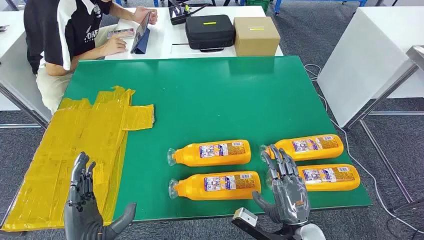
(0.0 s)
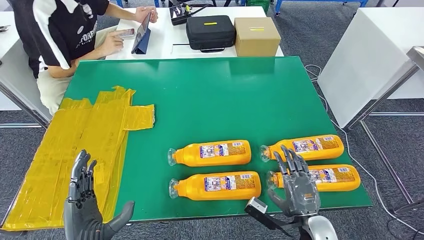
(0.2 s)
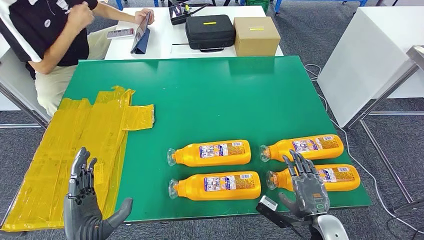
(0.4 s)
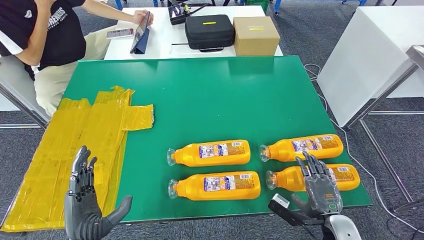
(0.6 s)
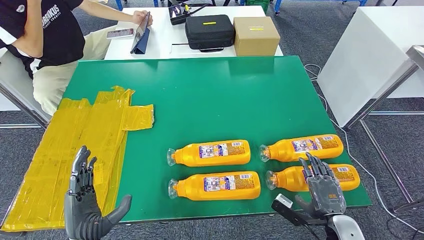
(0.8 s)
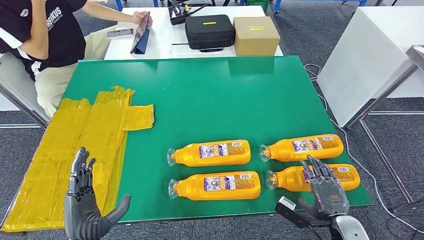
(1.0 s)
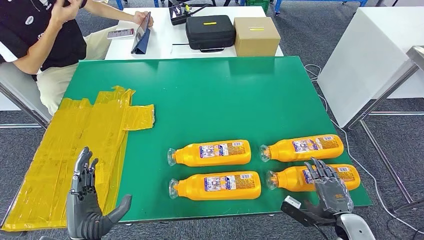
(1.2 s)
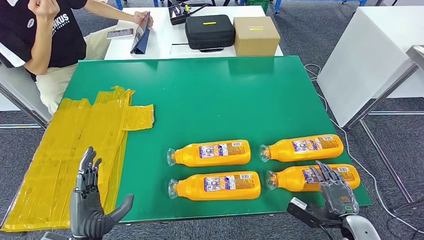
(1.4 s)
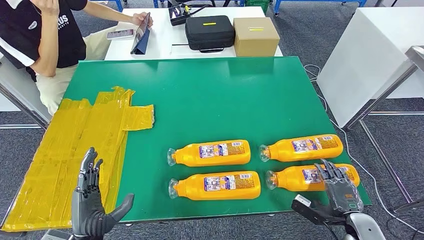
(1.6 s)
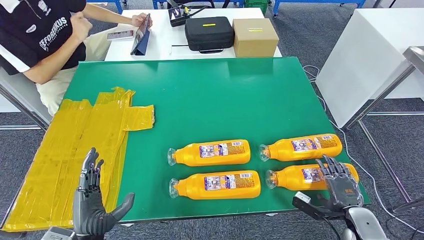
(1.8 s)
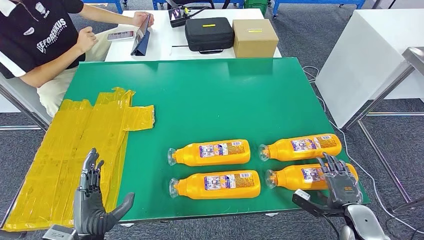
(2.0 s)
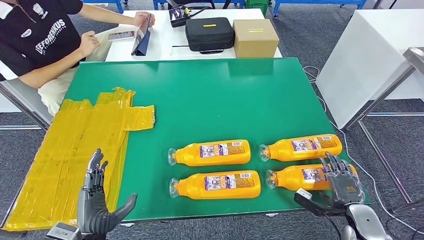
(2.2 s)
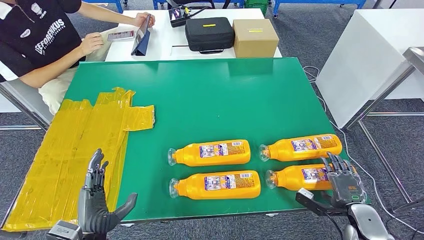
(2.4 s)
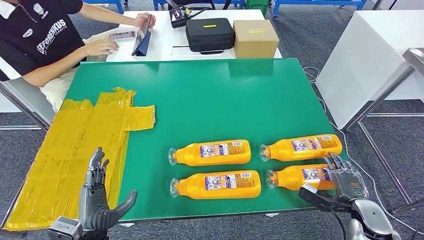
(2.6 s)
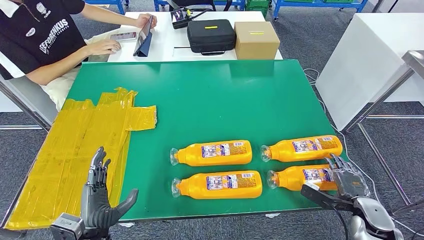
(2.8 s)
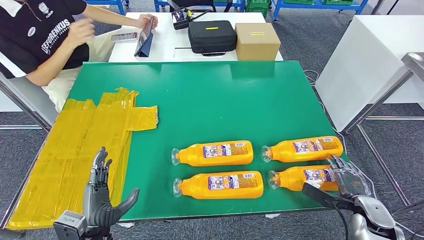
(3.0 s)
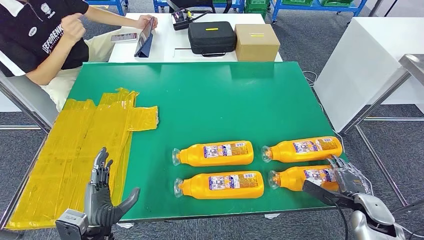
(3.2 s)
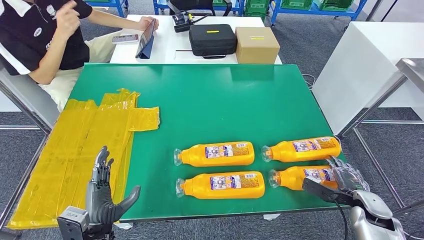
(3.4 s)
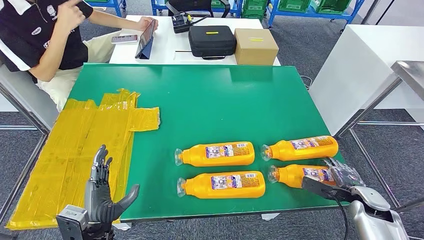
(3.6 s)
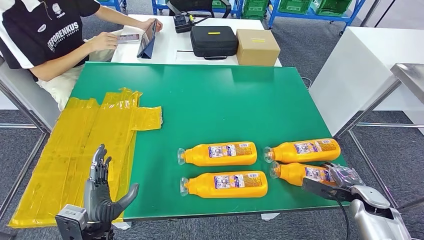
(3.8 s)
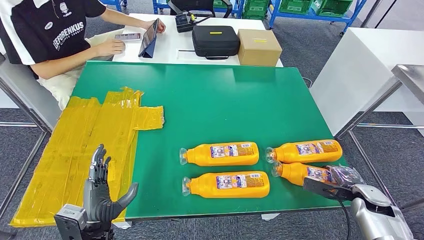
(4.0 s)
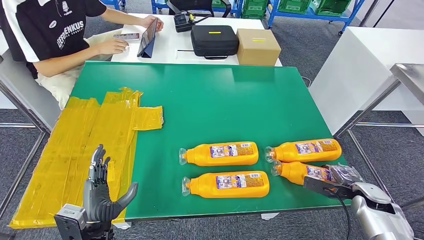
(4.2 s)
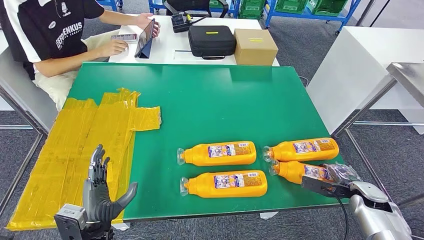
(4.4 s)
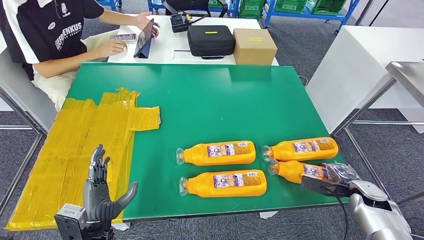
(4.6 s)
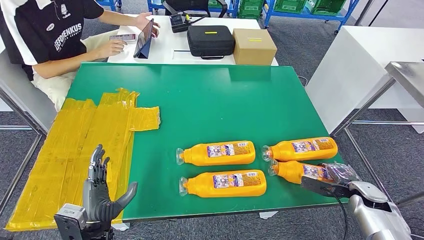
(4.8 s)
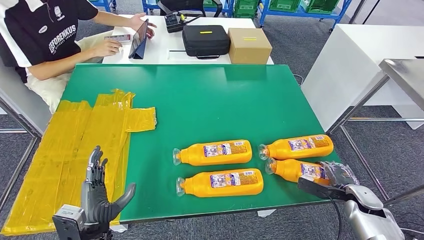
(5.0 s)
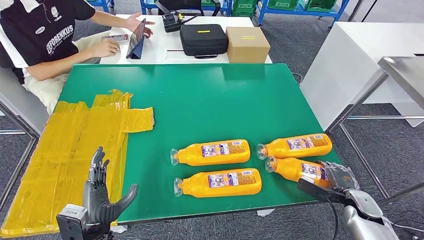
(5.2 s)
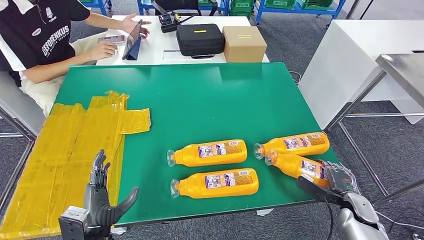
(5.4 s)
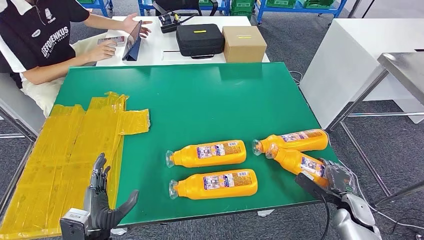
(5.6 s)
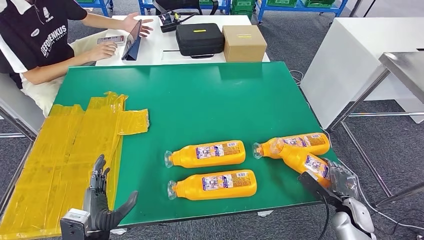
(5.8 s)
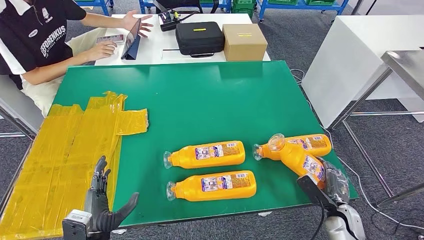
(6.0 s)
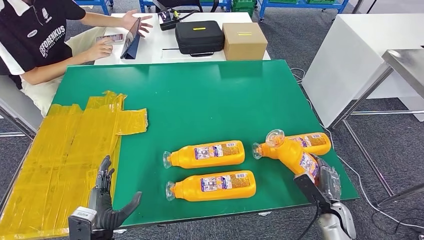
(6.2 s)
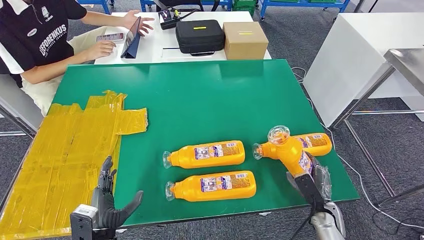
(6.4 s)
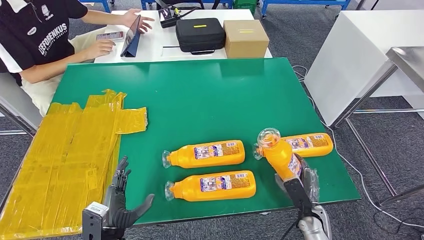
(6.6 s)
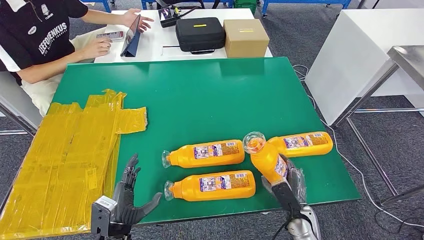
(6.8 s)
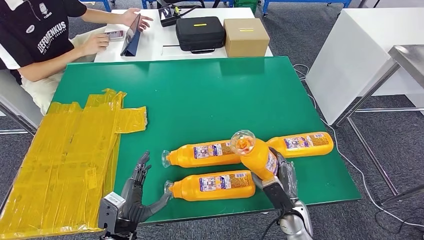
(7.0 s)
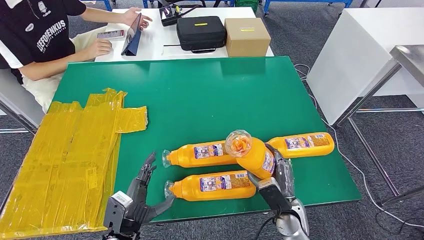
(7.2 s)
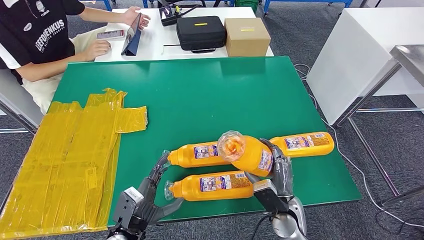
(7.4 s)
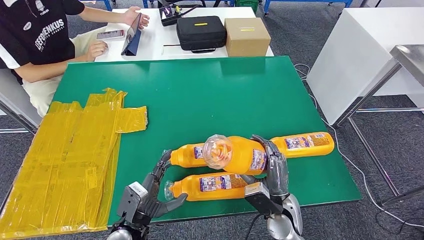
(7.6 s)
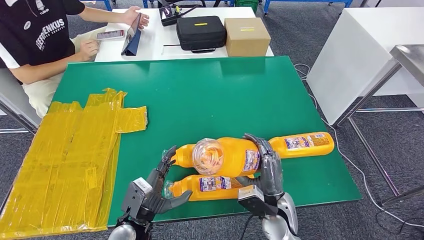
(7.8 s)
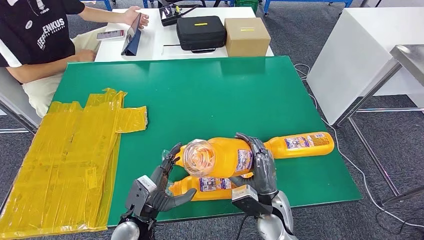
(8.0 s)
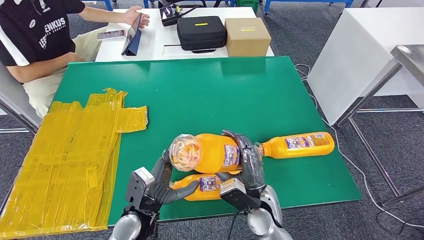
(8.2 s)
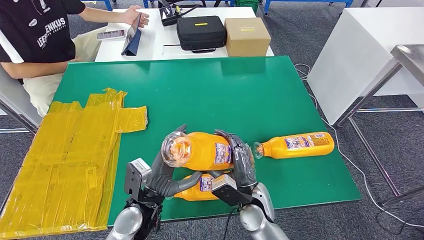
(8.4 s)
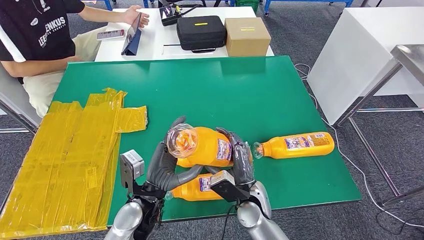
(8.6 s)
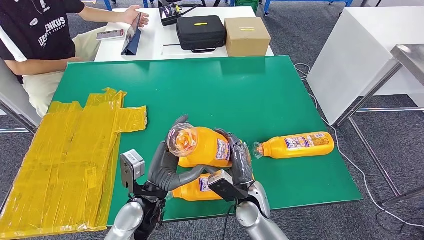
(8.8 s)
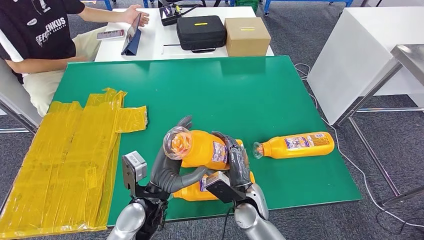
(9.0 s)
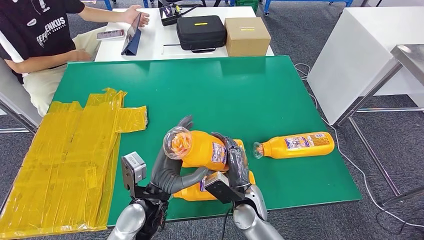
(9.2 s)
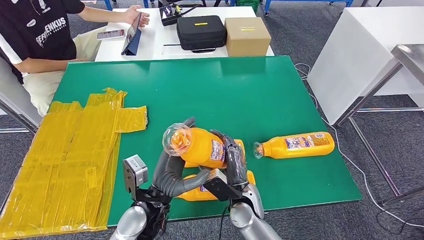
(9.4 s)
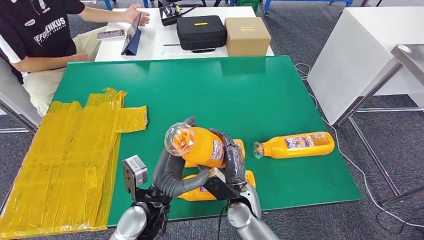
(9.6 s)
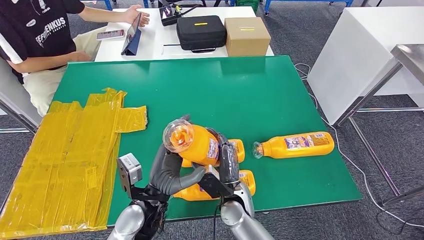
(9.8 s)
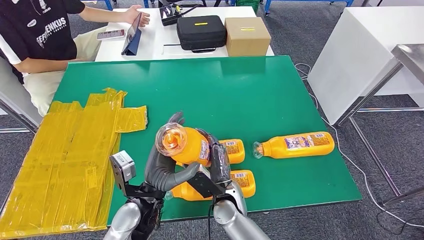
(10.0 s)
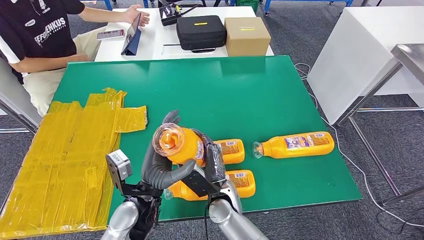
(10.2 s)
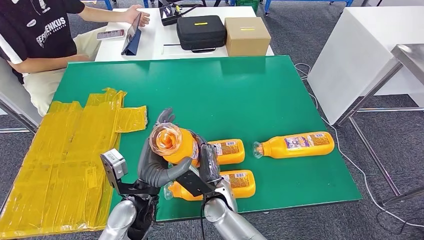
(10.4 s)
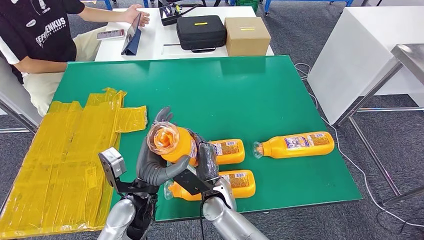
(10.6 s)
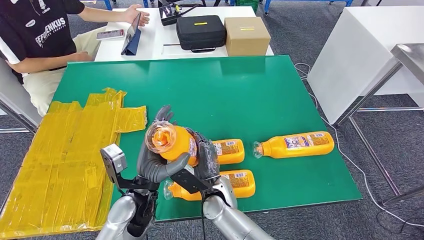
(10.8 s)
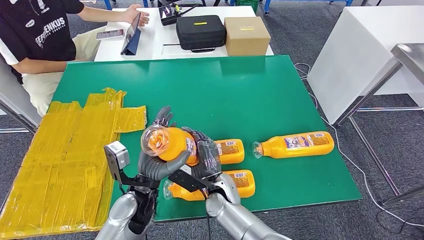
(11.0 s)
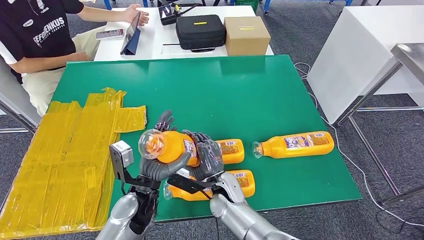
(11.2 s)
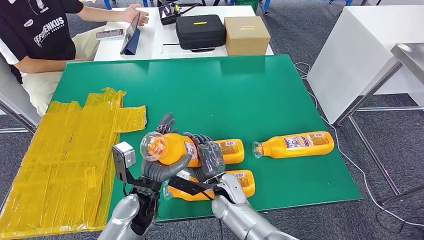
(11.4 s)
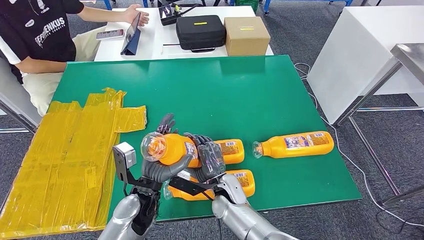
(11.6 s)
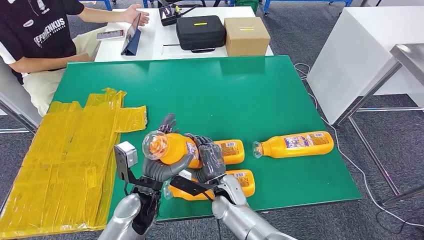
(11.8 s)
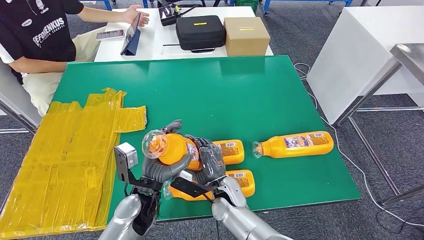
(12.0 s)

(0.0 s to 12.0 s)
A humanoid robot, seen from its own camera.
Step, 0.0 s - 8.4 s: Take the bottle from the table.
7.6 s - 9.0 s: The right hand heads to the left, covering roughly 10 cm; the left hand moves upward and to the right, approximately 10 cm.
9.0 s - 10.4 s: The right hand travels to the left by some 10 cm.

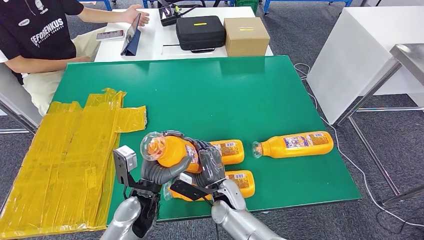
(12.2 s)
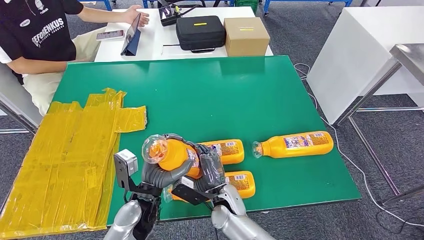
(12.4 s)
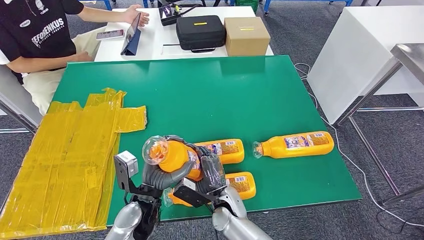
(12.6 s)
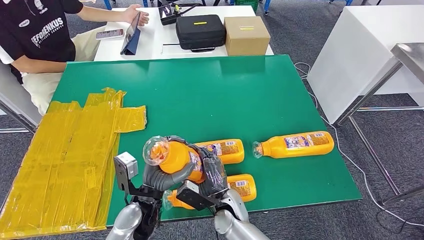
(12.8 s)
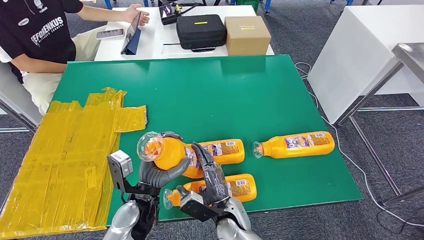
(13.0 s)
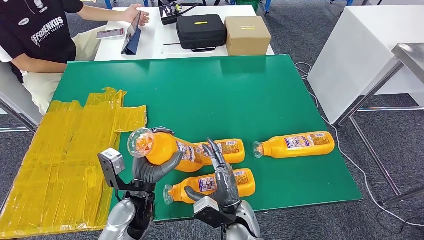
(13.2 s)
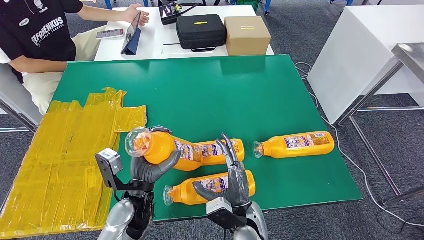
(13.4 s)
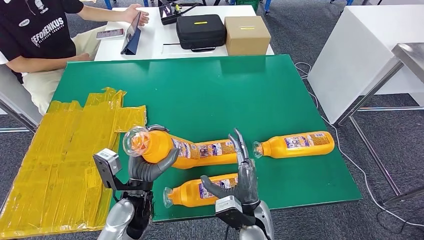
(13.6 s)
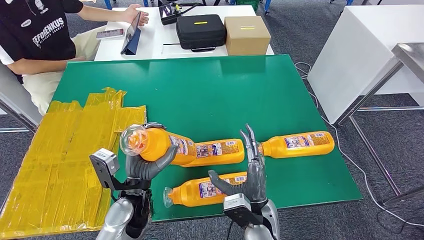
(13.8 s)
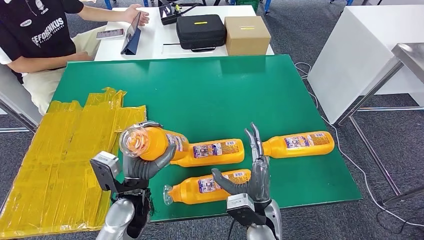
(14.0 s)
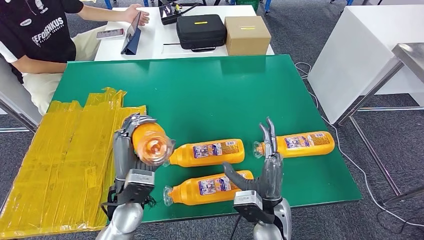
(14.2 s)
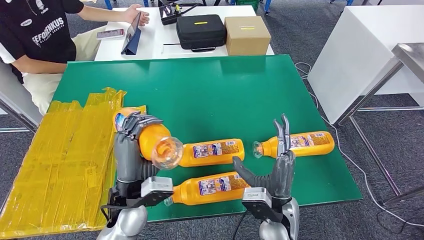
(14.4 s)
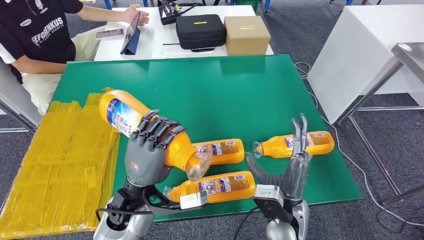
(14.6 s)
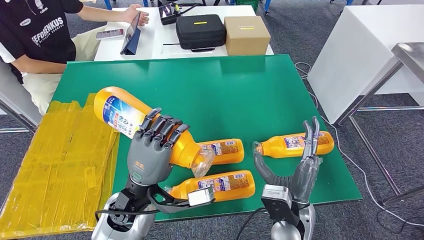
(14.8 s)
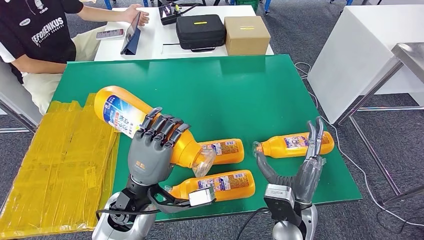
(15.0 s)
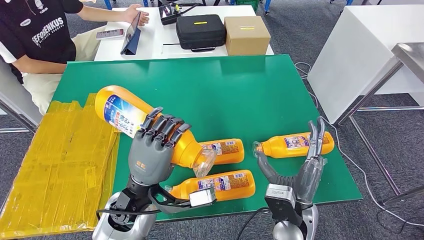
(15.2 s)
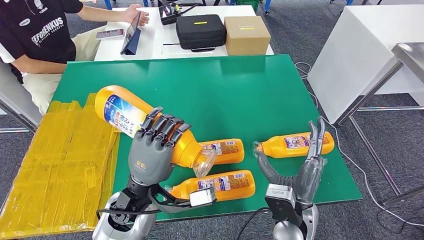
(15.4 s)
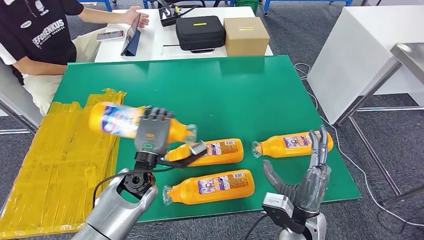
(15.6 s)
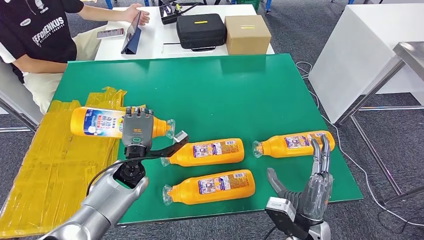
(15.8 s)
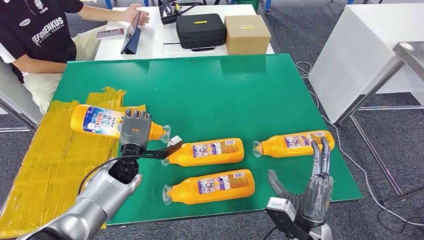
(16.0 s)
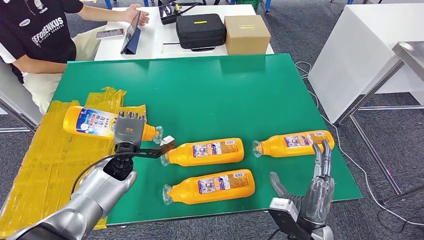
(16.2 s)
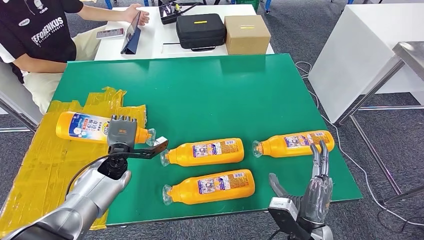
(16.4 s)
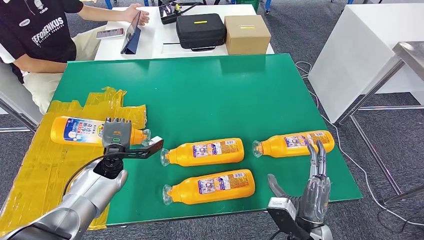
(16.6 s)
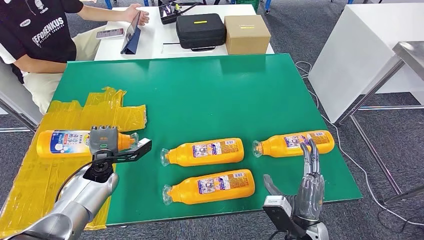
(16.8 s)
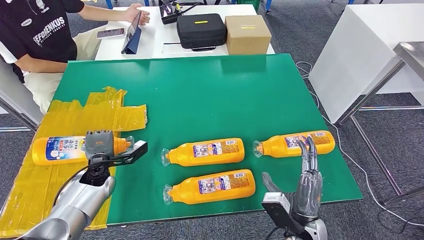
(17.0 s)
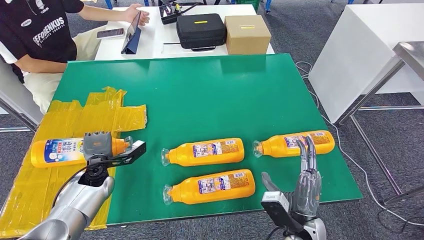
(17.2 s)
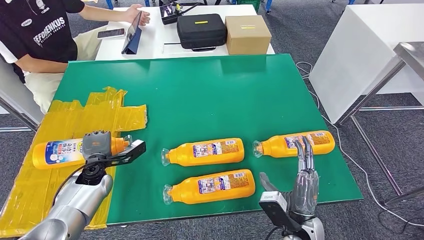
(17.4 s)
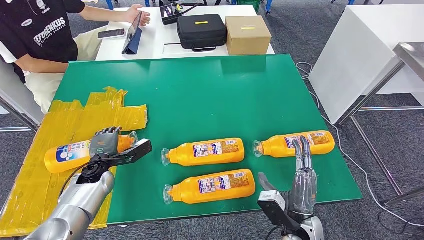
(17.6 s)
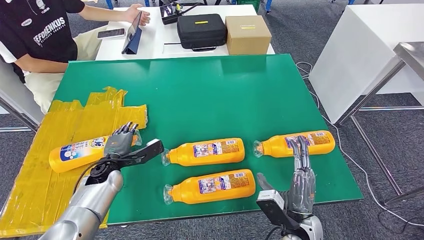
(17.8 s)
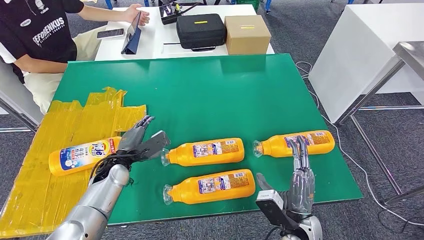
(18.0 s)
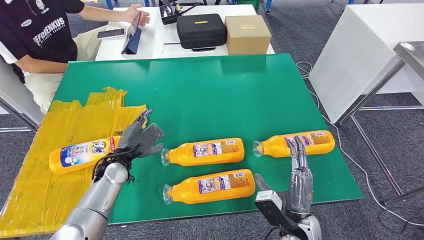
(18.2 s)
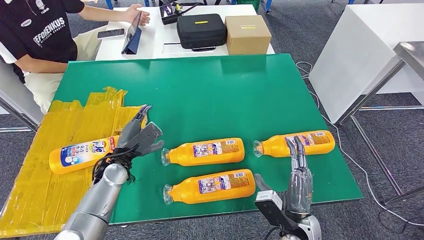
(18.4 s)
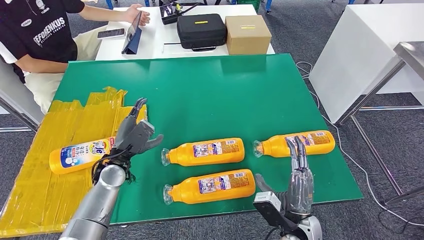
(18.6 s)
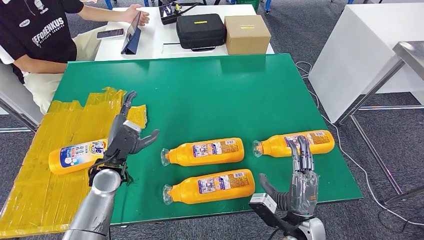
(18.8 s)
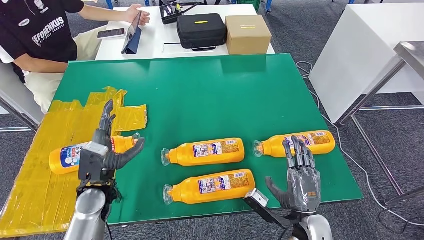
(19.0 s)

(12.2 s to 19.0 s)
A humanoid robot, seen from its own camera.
Step, 12.2 s - 17.0 s: Flip the bottle to face forward.
12.2 s - 13.6 s: The right hand is displaced backward, to the right and upward by about 10 cm.
13.6 s - 15.0 s: The left hand shifts about 5 cm upward. Meanwhile the right hand moves to the right and upward, some 10 cm.
16.2 s - 17.6 s: The left hand heads to the left, covering about 10 cm.
17.6 s - 19.0 s: The left hand moves backward, some 10 cm.
